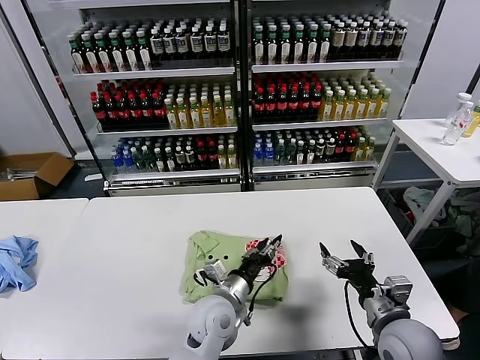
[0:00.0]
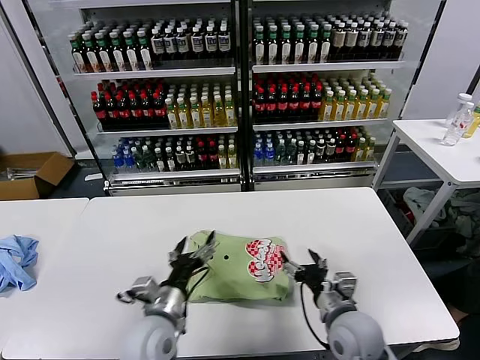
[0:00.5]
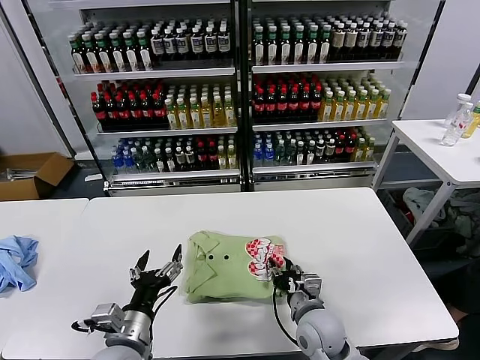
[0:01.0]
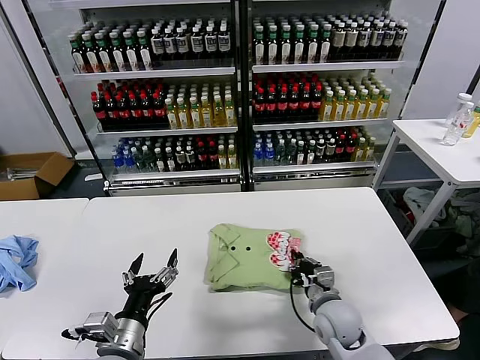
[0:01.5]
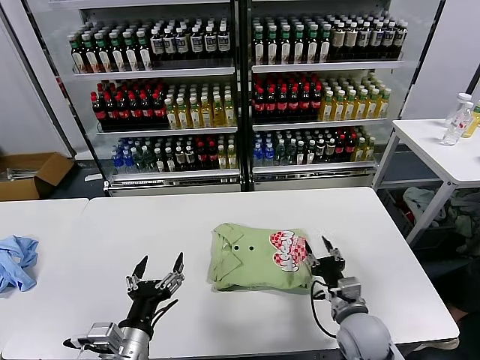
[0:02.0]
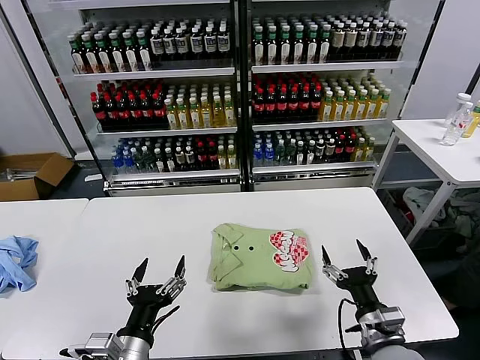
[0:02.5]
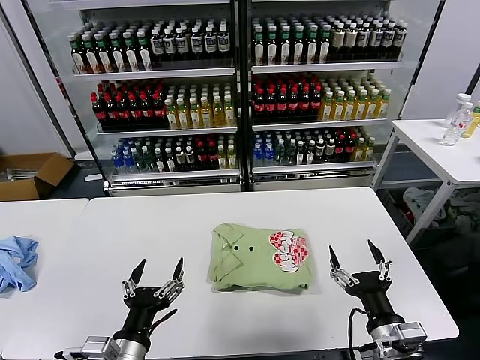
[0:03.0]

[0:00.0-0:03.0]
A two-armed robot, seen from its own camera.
Task of the whole recording: fold and organize the clothes.
Step, 0:00.0 to 0:01.5: Drag the clothes to the center of the table.
0:00.0 to 0:01.5: The left gripper travels to the left and backward by approximately 20 cm, and opens up, while the right gripper shifts about 15 cm downward, to the left and forward, and closes its fingers.
0:01.5 to 0:03.0: The right gripper shifts approximately 20 cm backward, upward and to the right, and opens. The left gripper shifts by approximately 5 cm.
